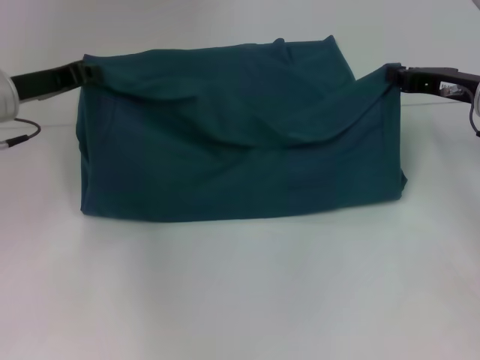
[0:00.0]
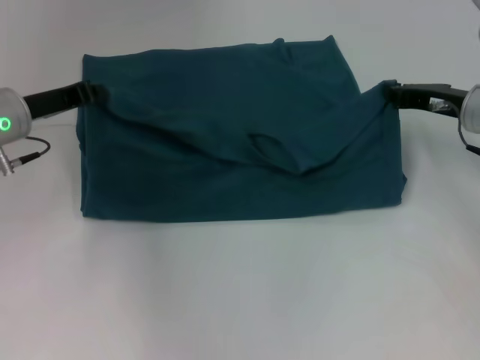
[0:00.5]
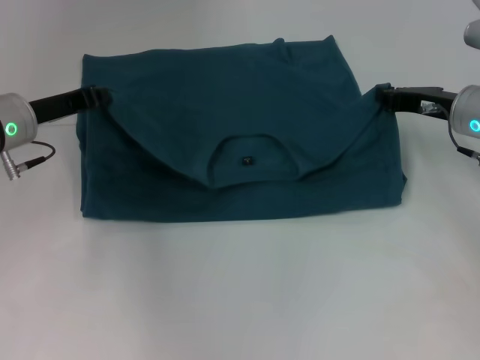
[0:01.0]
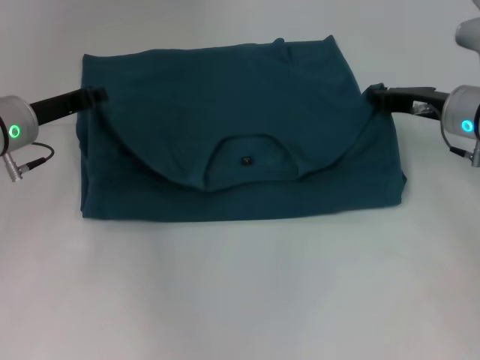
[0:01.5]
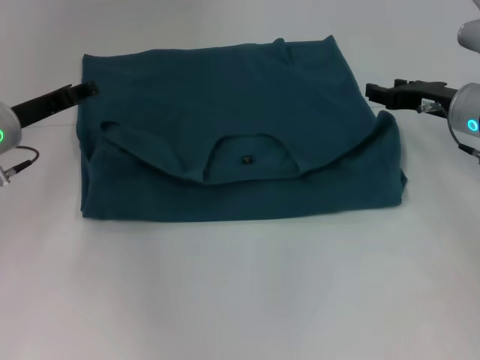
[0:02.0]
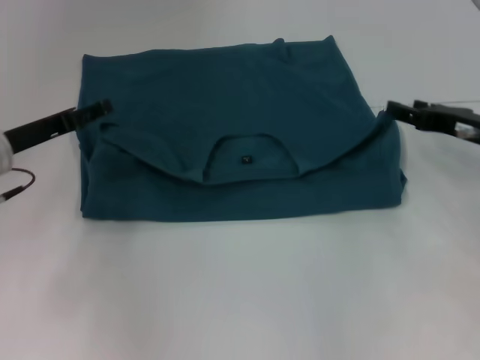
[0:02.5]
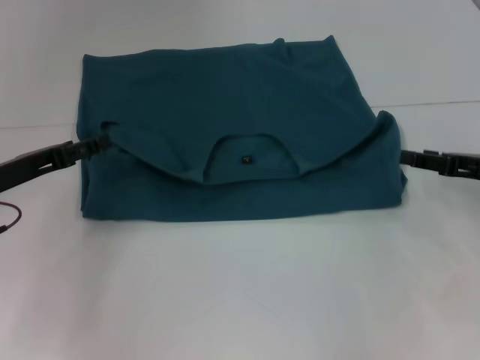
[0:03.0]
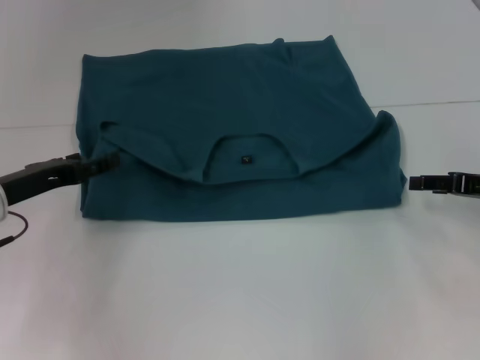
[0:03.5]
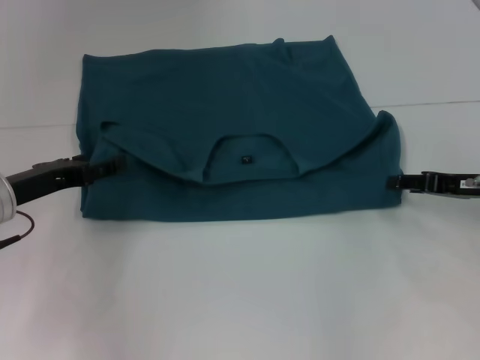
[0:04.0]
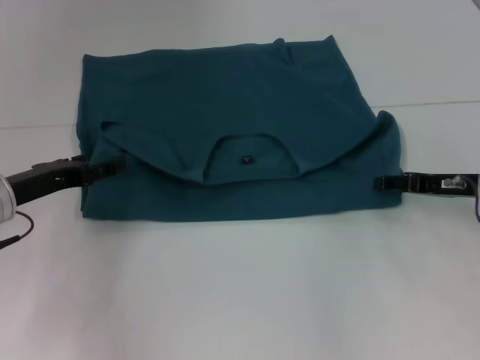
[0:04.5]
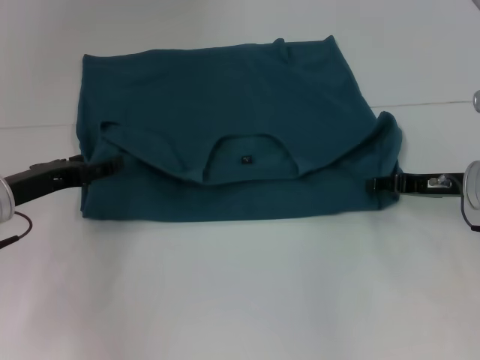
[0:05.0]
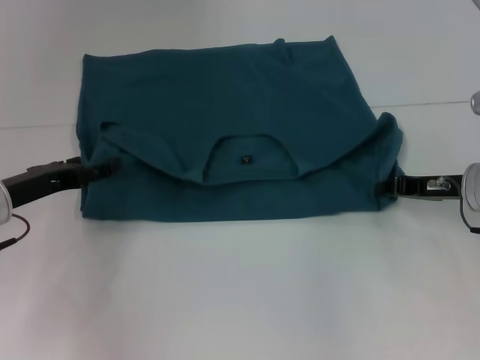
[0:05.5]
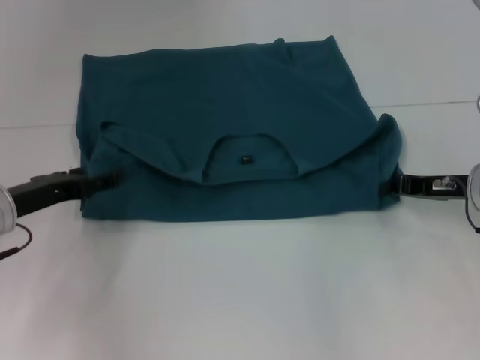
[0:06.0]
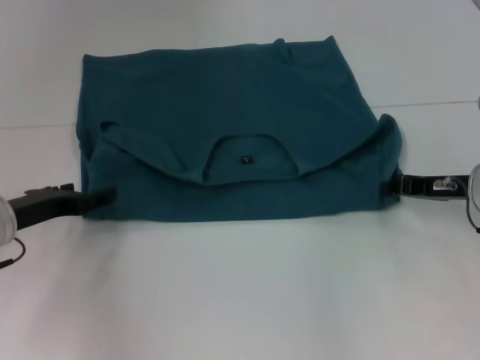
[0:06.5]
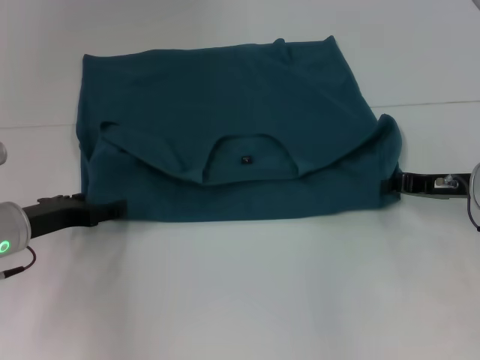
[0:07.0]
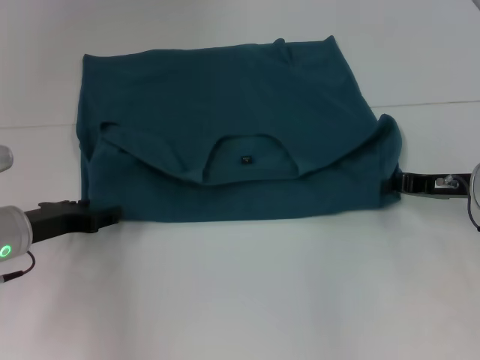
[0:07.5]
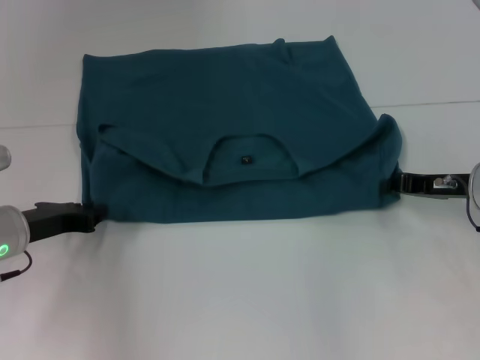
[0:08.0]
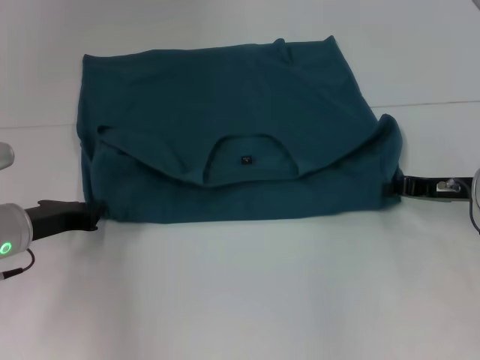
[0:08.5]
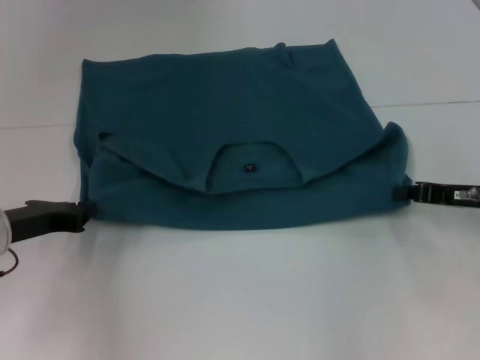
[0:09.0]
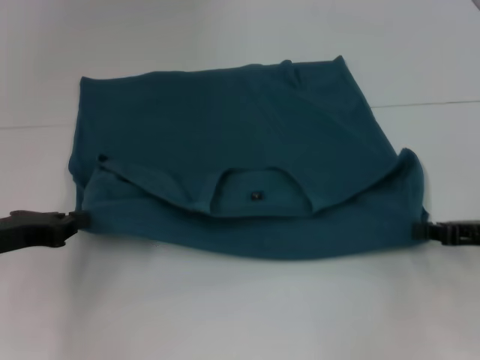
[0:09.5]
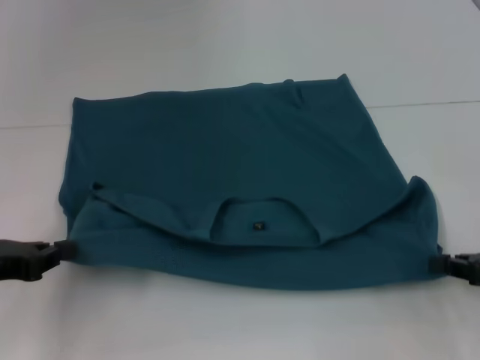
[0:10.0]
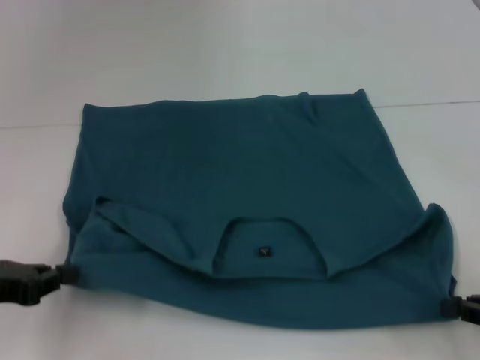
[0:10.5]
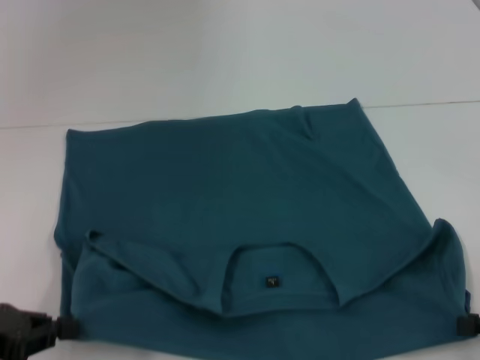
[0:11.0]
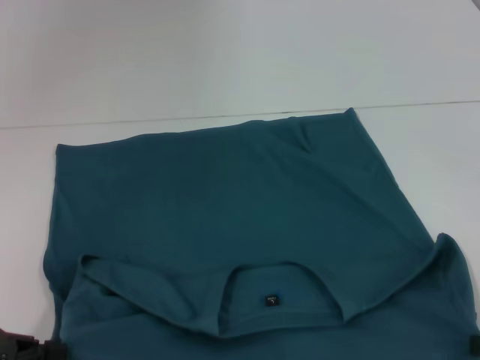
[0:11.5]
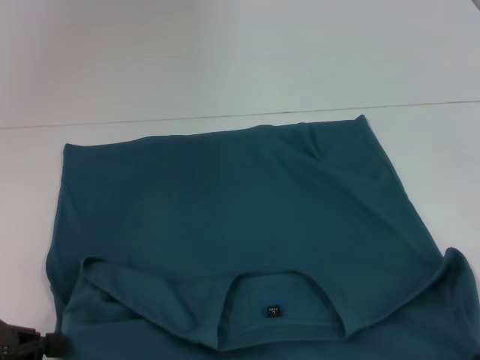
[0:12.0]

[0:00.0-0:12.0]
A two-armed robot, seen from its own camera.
Step, 0:00.0 to 0:02.0: Fold the clothes to the left.
Step, 0:00.0 to 0:02.0: Fold the clothes to the right.
Step, 0:02.5 to 0:12.0: Pull the clothes with your left hand.
Step, 0:02.5 to 0:12.0: Pull the clothes with your right hand.
0:00.0 to 0:02.0: The left gripper opens its fingers. The right gripper opens up.
0:02.0 to 0:04.0: The grippers both shift backward by about 5 cm. The left gripper opens up.
0:04.0 to 0:06.0: The right gripper closes its fingers.
0:06.0 to 0:08.0: The left gripper closes up.
0:08.0 to 0:10.0: The right gripper goes about 15 cm backward and to the right; the left gripper shifts some 10 cm backward and to the left.
0:10.0 to 0:12.0: The right gripper travels backward by about 10 cm. The left gripper is displaced backward by approximately 5 cm.

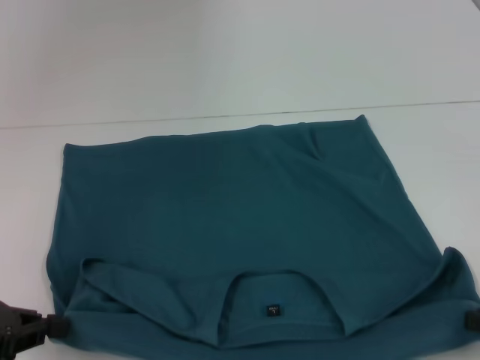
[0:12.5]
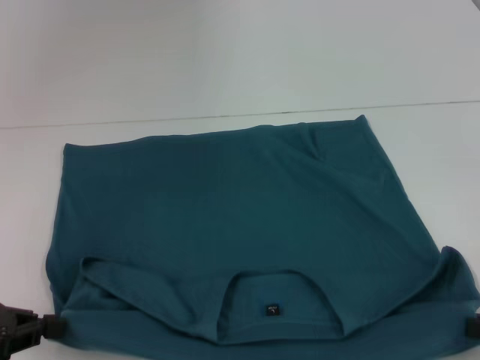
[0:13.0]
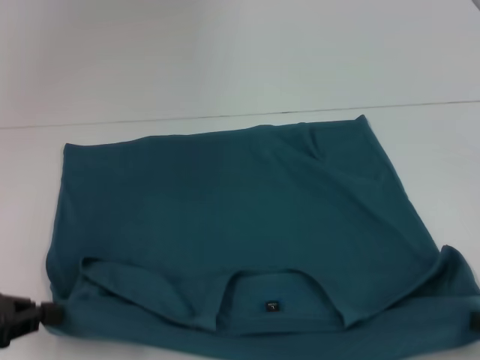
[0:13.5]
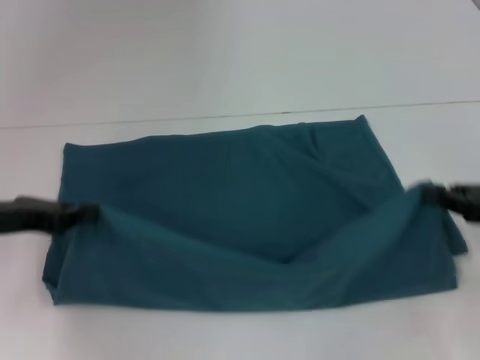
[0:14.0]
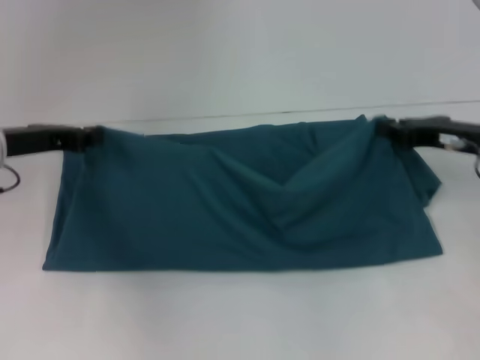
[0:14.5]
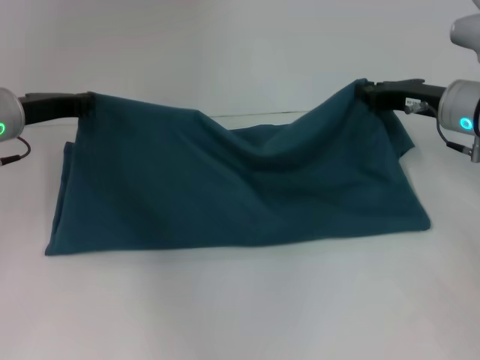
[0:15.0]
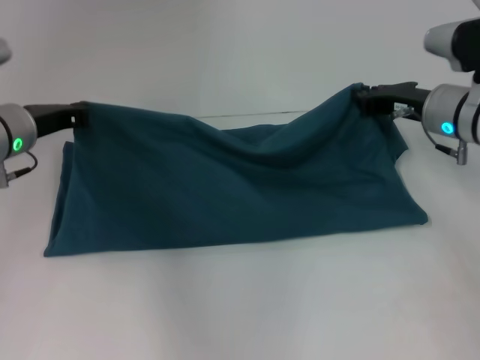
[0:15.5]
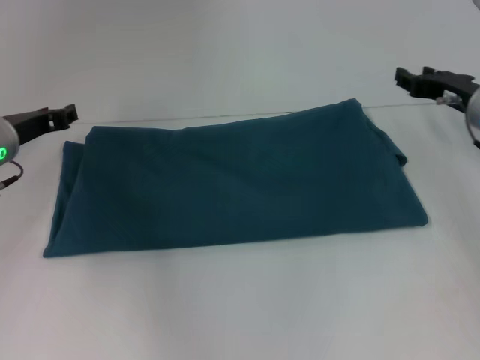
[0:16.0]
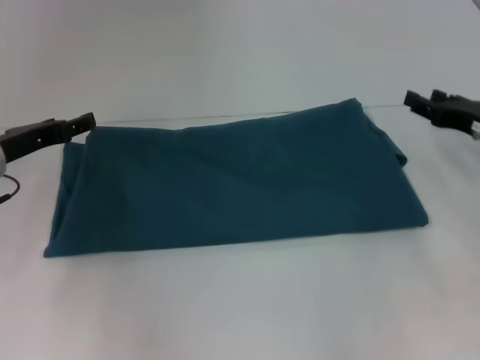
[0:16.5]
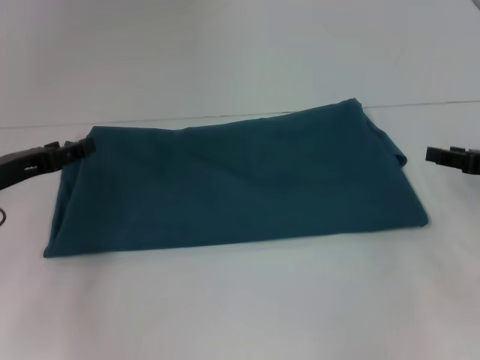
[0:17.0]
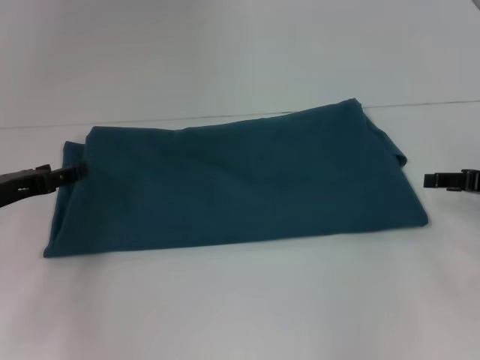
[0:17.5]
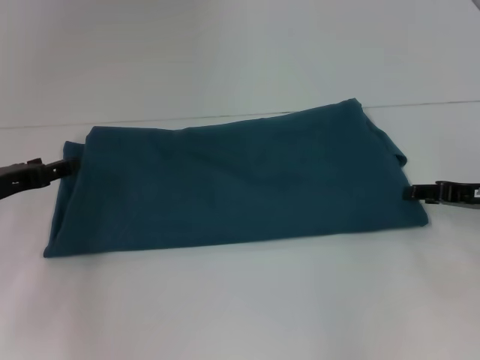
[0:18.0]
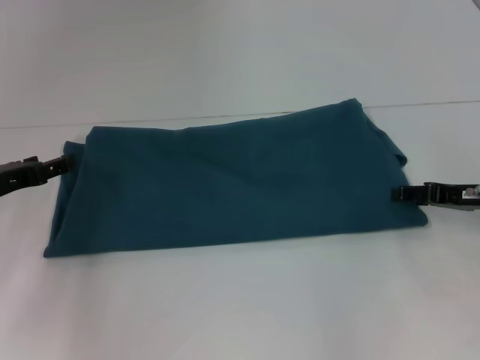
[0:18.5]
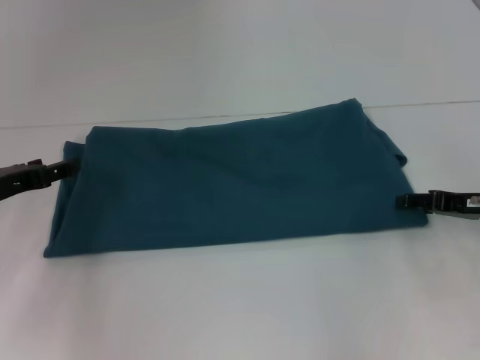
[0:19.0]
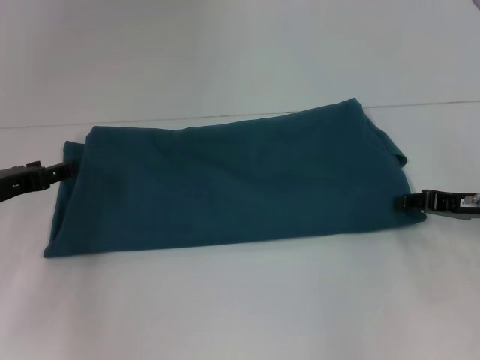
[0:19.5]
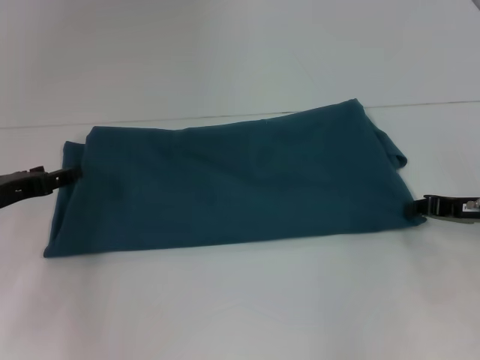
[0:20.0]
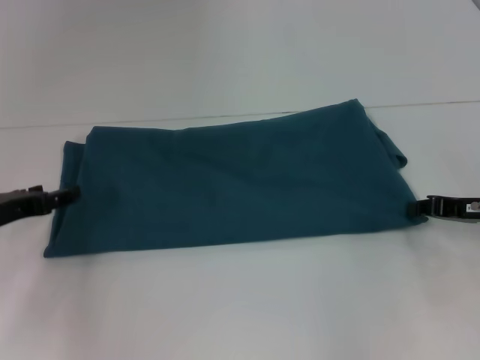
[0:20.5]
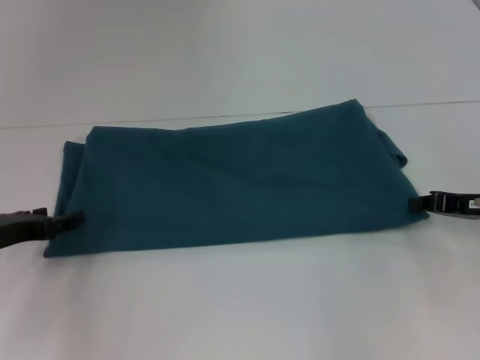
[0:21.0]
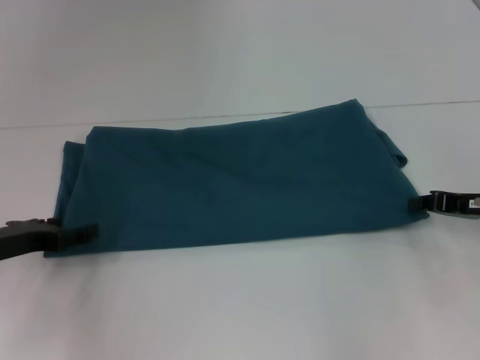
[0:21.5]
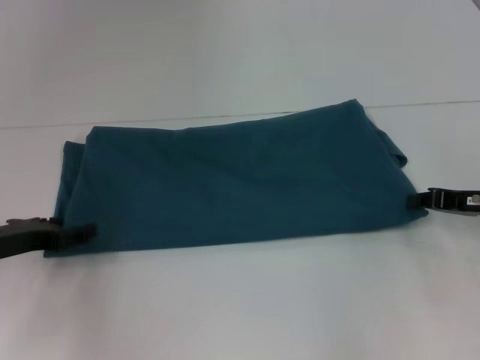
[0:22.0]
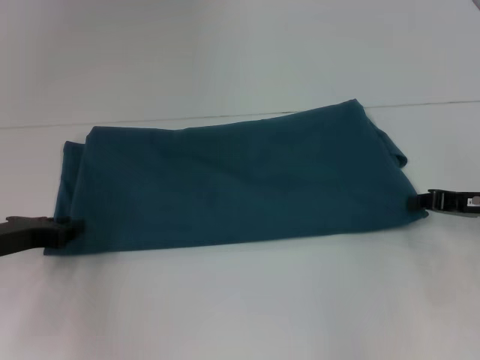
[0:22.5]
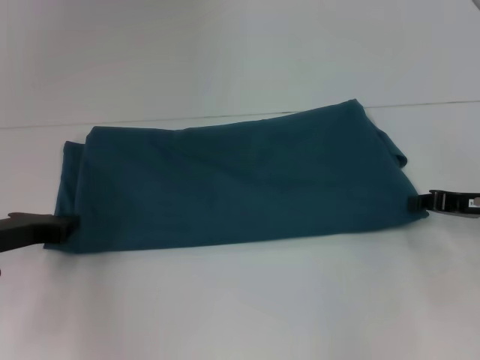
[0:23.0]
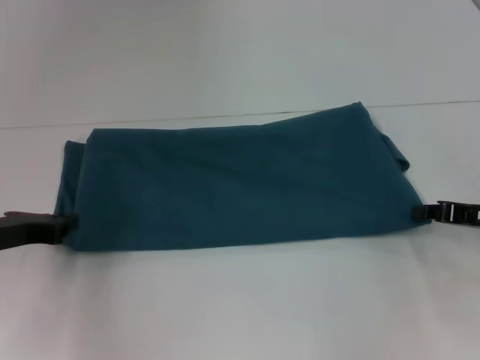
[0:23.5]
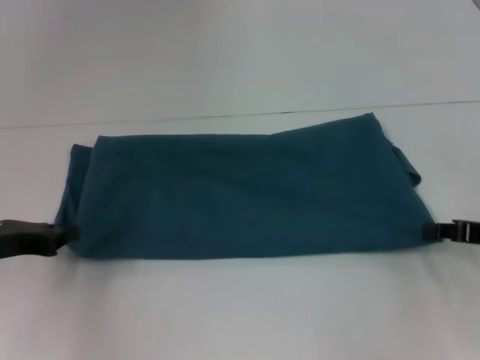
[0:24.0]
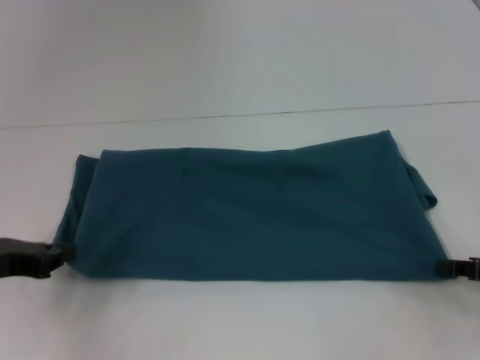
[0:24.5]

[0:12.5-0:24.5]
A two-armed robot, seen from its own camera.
Step, 0:12.5 to 0:16.0: Fold the clothes to the left.
Step, 0:12.5 to 0:16.0: Fold the clothes to the right.
0:12.5 to 0:14.5: The left gripper moves forward, some 15 cm, while the right gripper goes about 20 cm forward and to the left.
0:14.5 to 0:16.5: The right gripper opens, while the left gripper opens its fingers.
0:16.5 to 0:18.5: The left gripper changes place by approximately 5 cm.
0:18.5 to 0:20.5: The right gripper closes up.
0:20.5 to 0:22.5: The left gripper closes.
0:22.5 to 0:24.5: The right gripper is displaced backward by roughly 10 cm. Meanwhile the left gripper changes place by roughly 5 cm, and closes up.

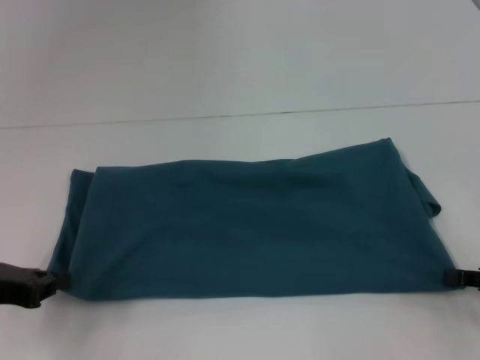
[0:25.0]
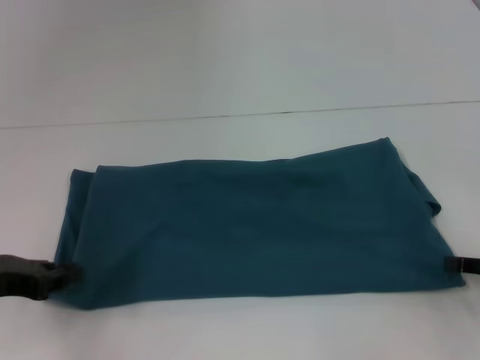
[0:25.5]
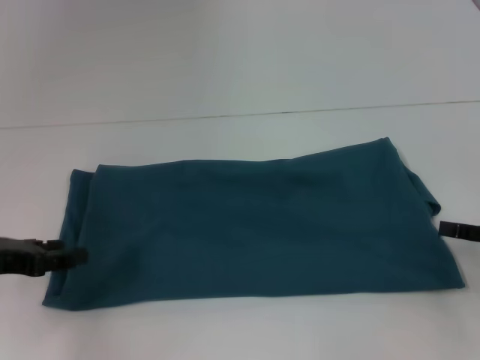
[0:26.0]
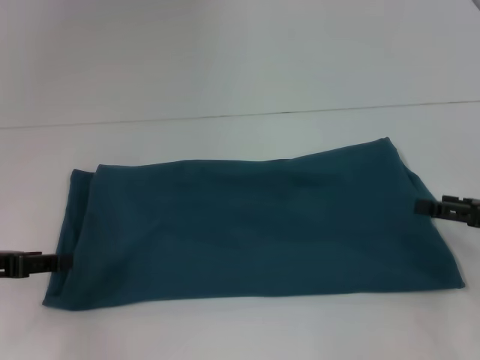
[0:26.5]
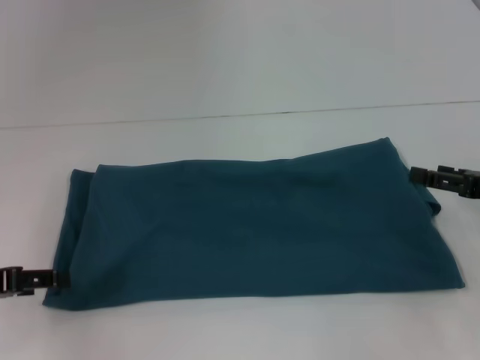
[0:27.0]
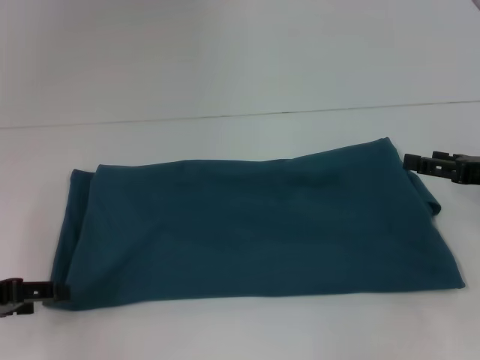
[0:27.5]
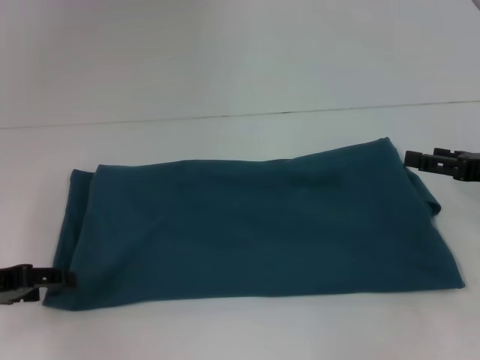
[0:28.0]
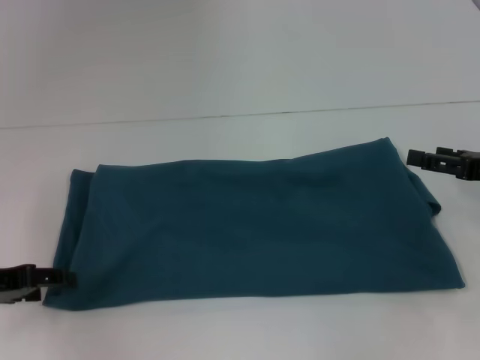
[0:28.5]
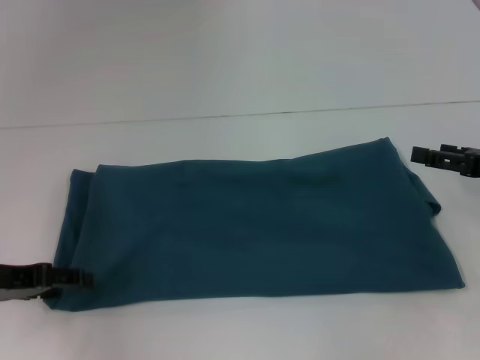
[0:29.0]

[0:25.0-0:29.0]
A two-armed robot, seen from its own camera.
0:25.0 to 0:27.0: The left gripper opens. Meanwhile the right gripper heads forward, covering some 5 cm, and opens up.
0:27.0 to 0:29.0: The grippers move only a little.
